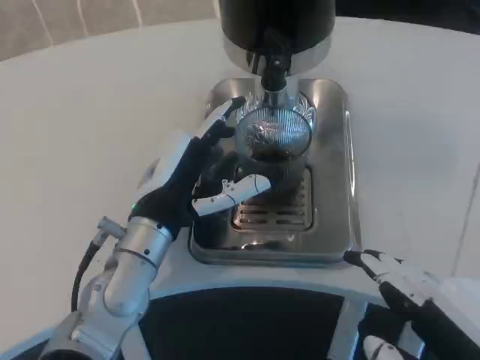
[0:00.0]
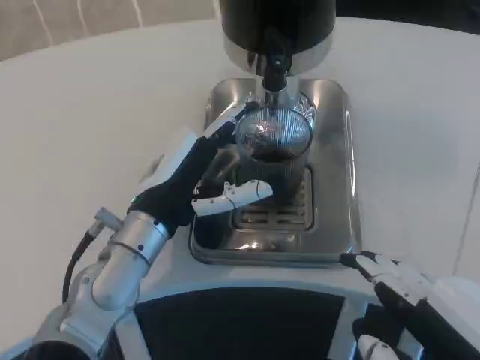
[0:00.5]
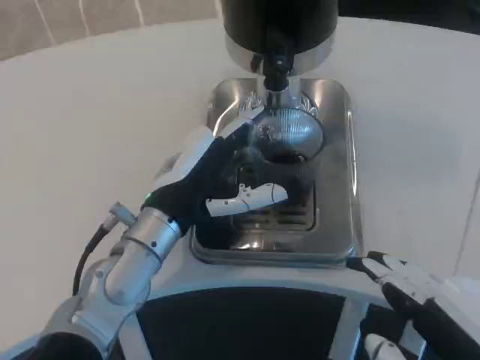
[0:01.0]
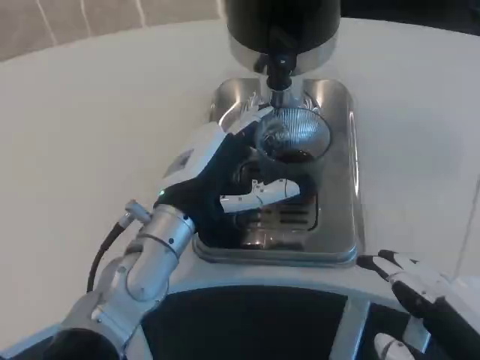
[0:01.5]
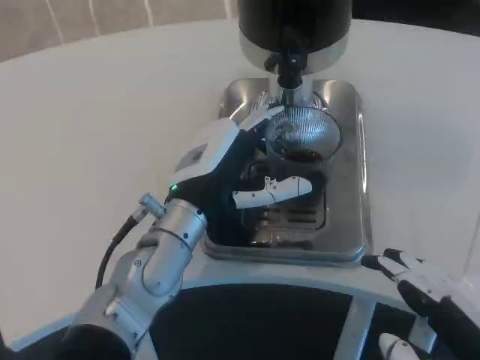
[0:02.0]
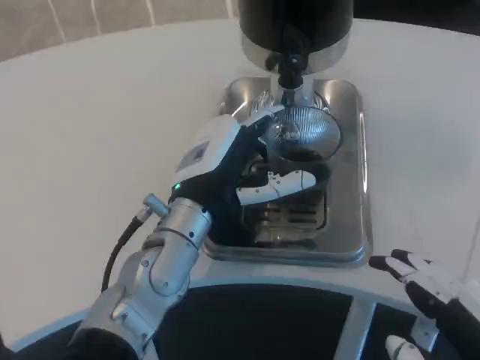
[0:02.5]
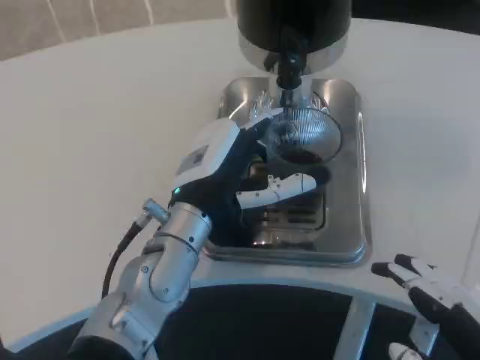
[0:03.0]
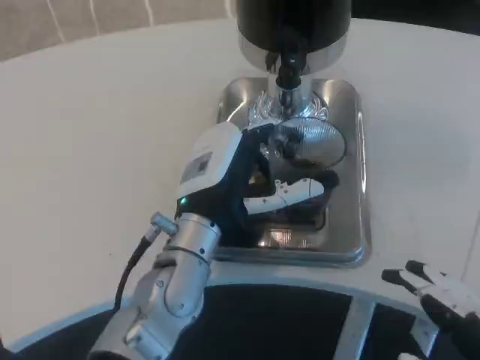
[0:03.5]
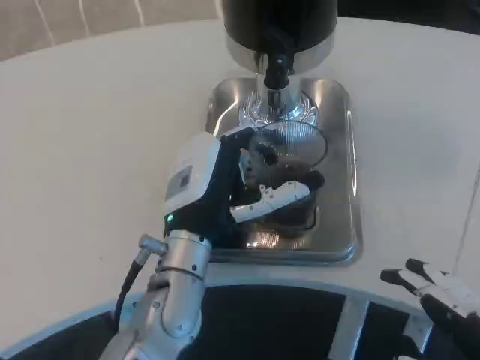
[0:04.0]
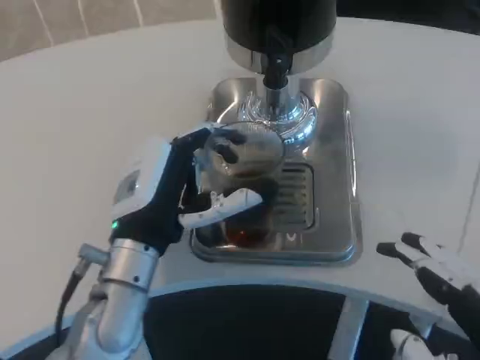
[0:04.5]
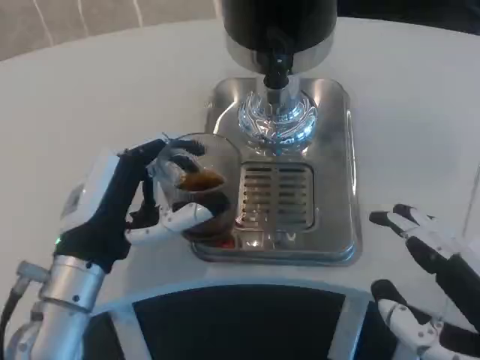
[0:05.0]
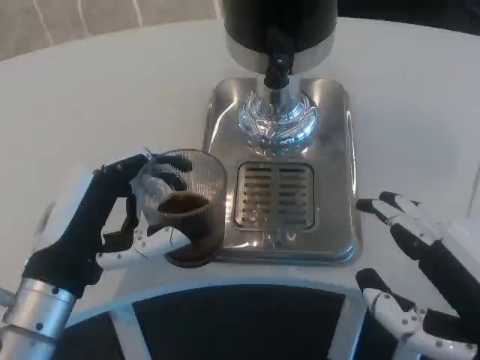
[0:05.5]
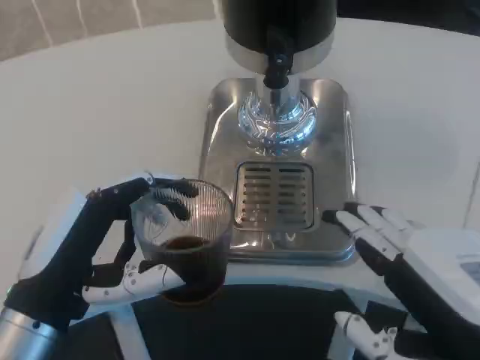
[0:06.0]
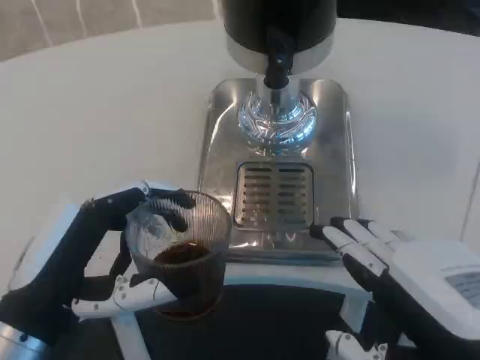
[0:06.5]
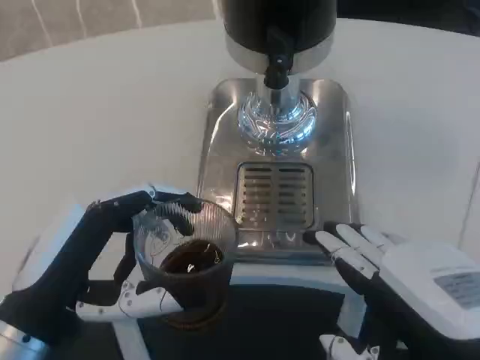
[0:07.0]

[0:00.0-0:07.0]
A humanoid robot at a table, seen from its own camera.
Task of the whole recording: Grasp the cup under the faucet to collect the drink, then remove the cup.
0:02.0 to 0:03.5: There are only small adjustments of the hands.
0:03.5 to 0:05.0: The left hand is displaced to the left by about 10 cm.
0:05.0 to 0:07.0: The left hand travels backward by approximately 5 cm.

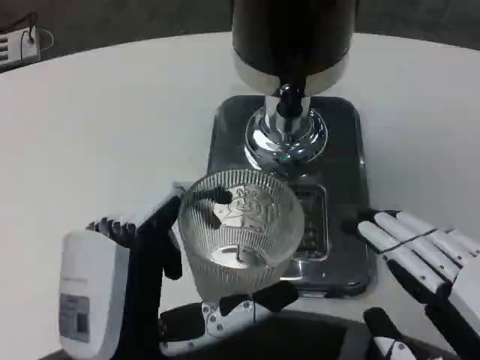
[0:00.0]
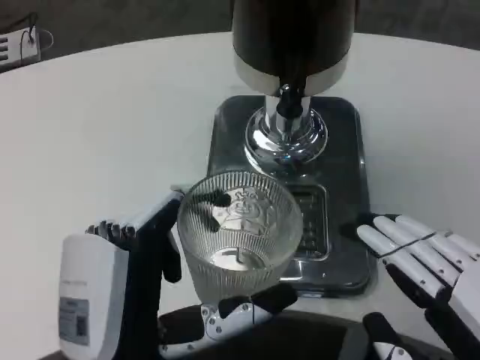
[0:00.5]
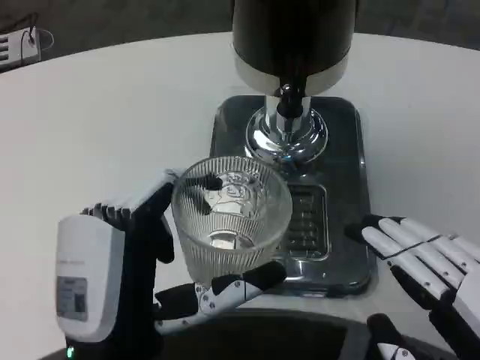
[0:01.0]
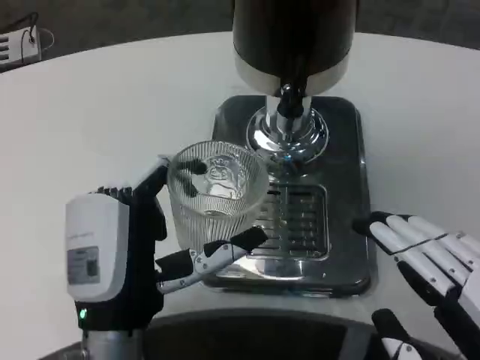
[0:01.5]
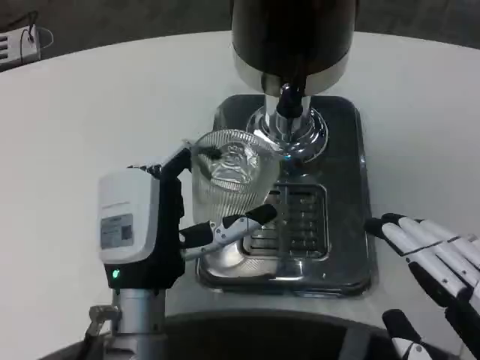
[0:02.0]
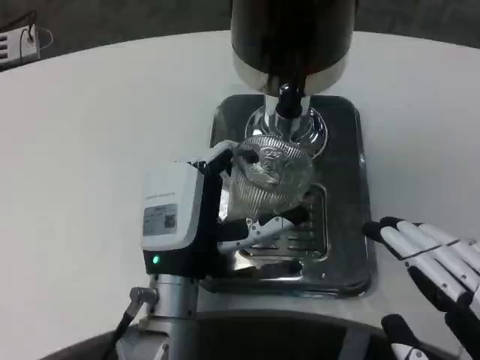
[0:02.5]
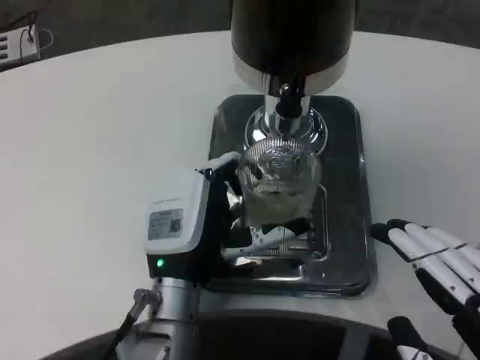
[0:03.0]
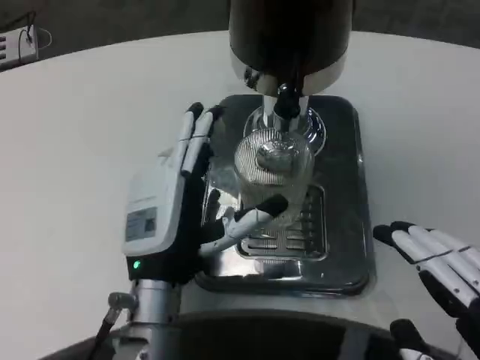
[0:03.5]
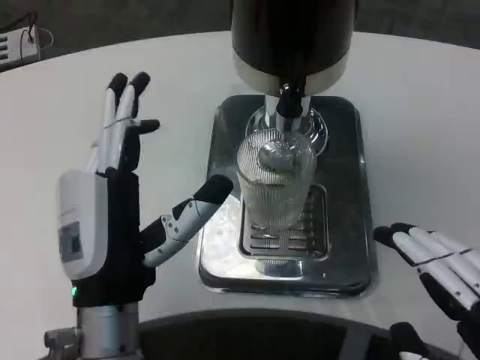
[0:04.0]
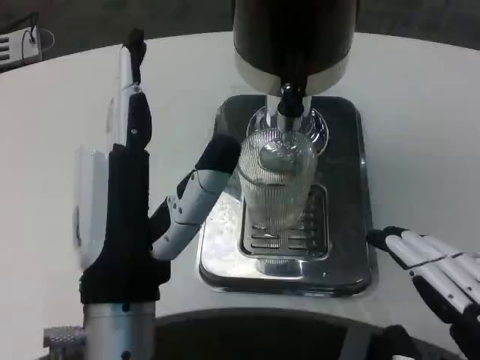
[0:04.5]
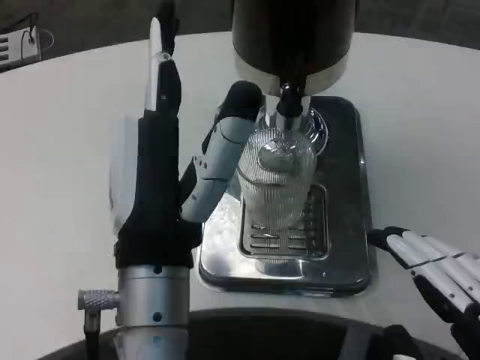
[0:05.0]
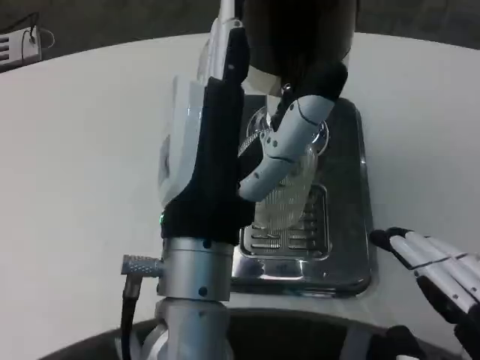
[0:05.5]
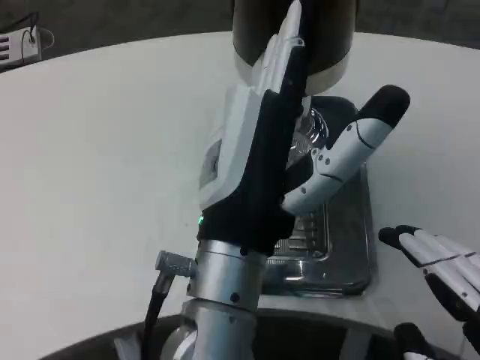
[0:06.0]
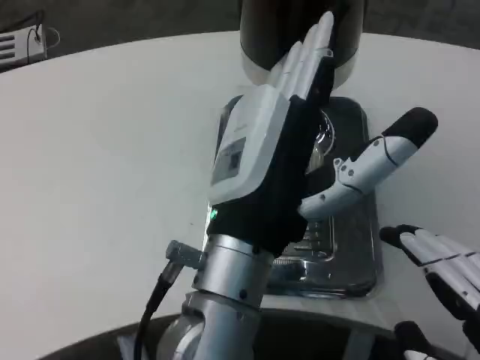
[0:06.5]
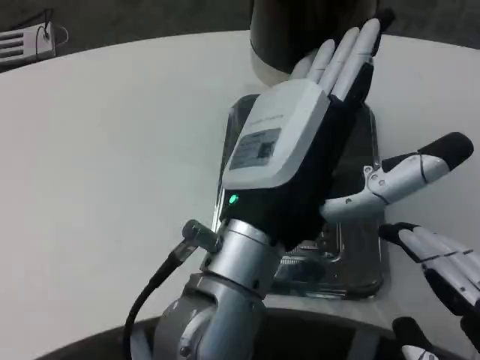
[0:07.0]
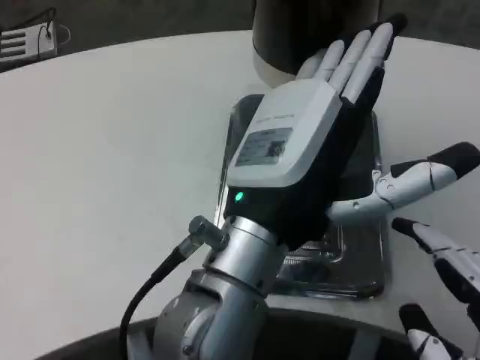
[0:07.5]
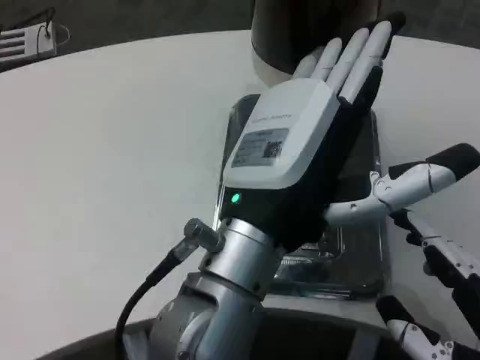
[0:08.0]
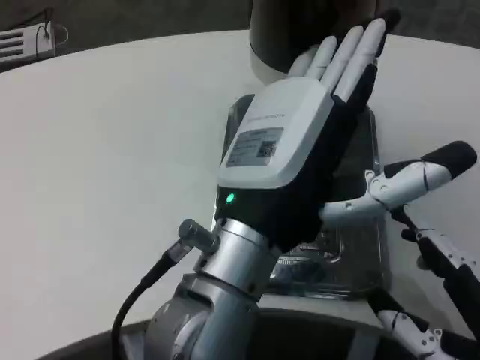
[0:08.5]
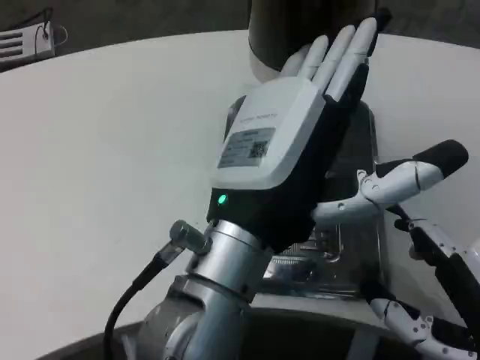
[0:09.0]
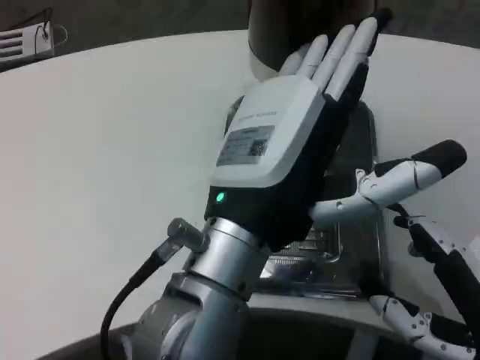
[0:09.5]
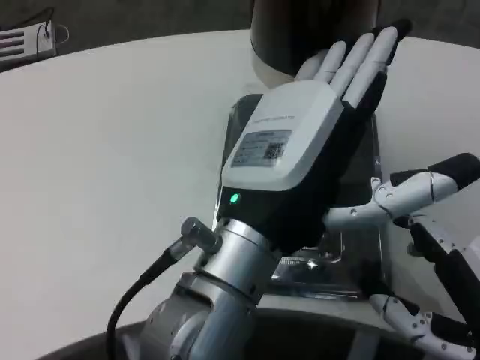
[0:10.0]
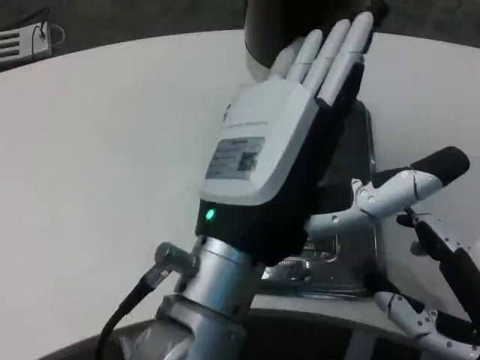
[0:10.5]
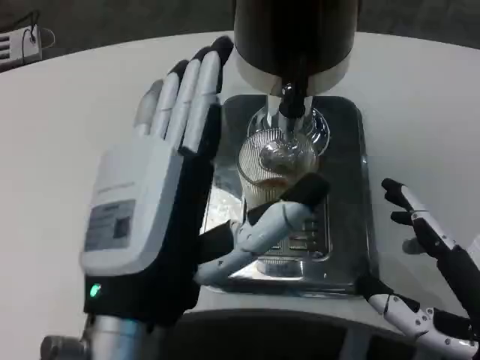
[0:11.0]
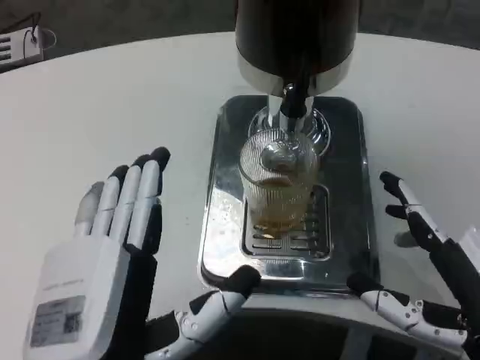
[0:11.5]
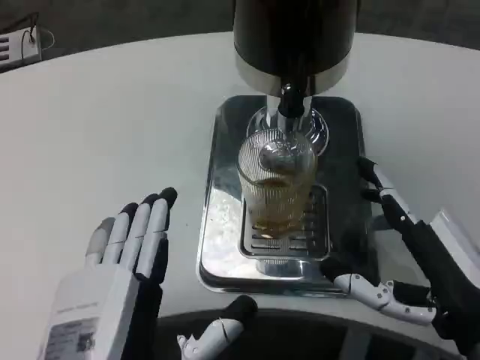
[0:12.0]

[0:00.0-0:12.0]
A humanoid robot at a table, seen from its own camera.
Task of the whole recording: Grasp the cup under the faucet to collect the drink, then remove the cup.
0:00.0 to 0:02.0: The left hand shifts about 10 cm forward.
0:02.0 to 0:04.0: The left hand shifts about 5 cm backward.
0:04.0 to 0:06.0: The left hand shifts about 10 cm to the right and upward.
0:08.0 to 0:10.0: The hands stay close to where they were, moving slightly.
0:10.0 to 0:12.0: The left hand goes about 15 cm downward, to the left and backward.

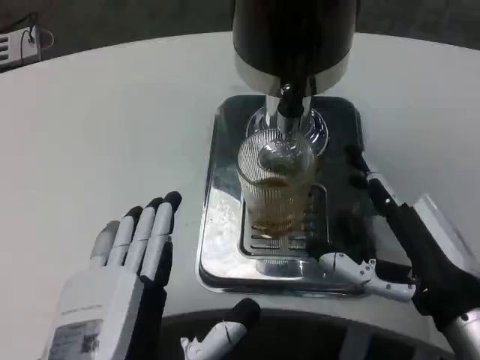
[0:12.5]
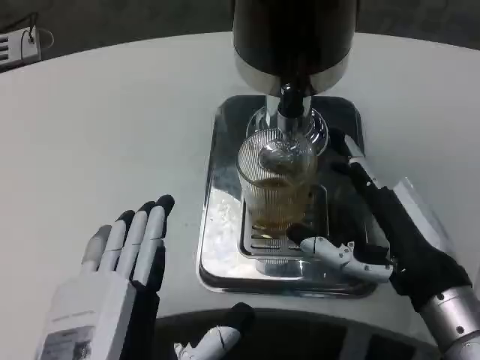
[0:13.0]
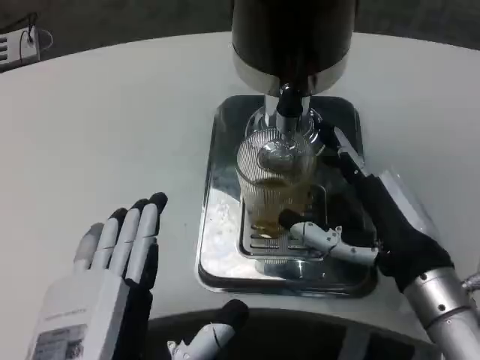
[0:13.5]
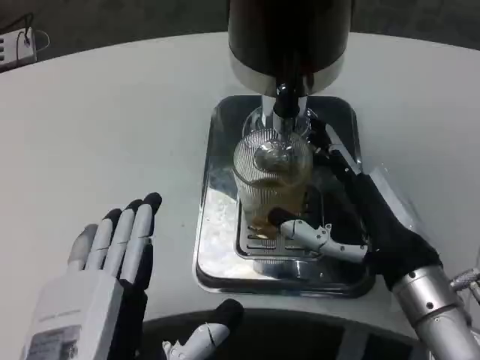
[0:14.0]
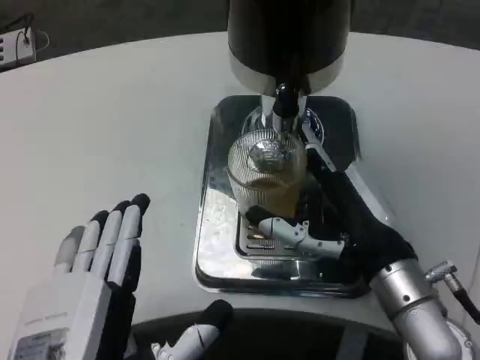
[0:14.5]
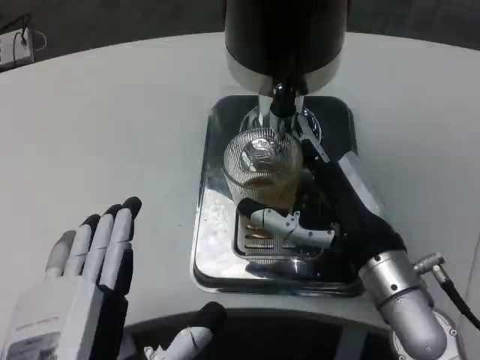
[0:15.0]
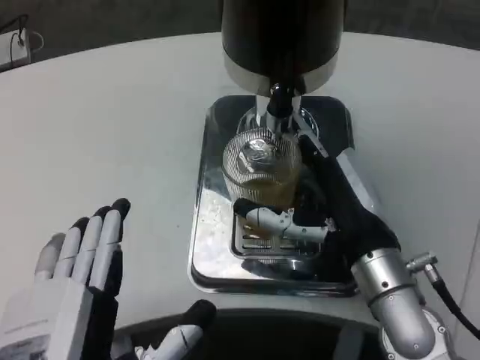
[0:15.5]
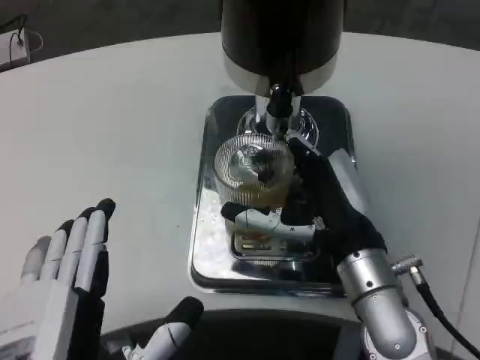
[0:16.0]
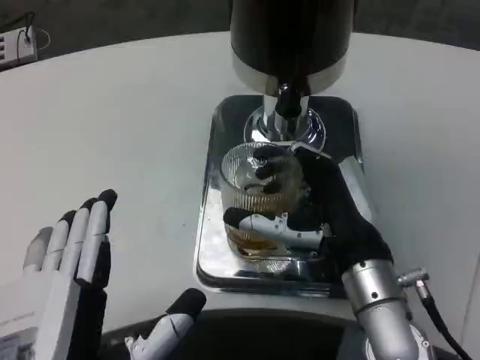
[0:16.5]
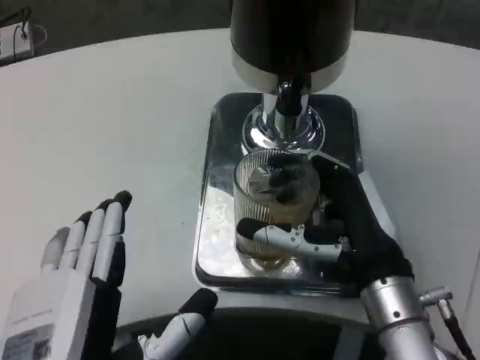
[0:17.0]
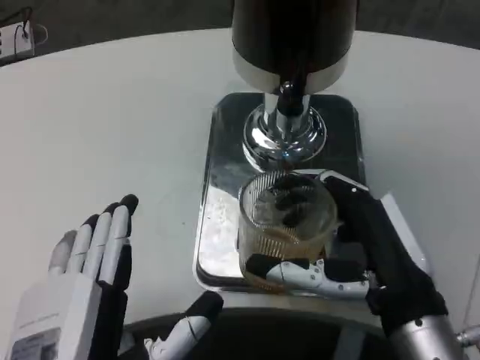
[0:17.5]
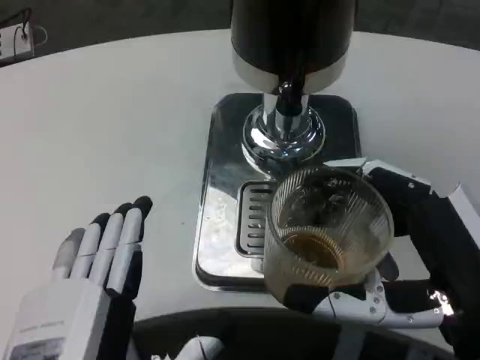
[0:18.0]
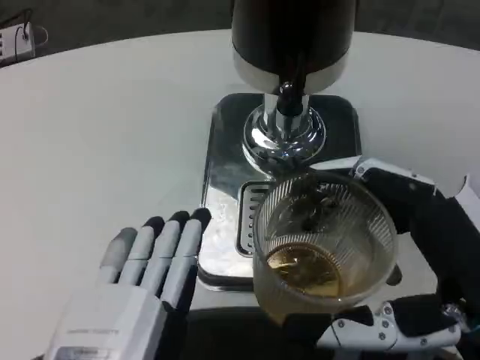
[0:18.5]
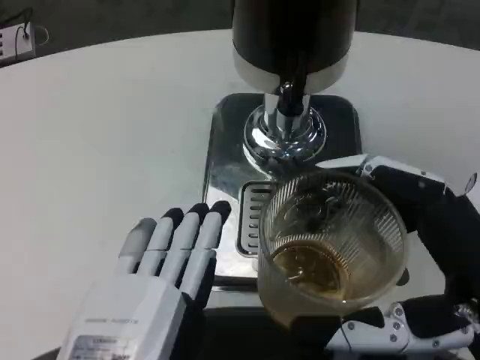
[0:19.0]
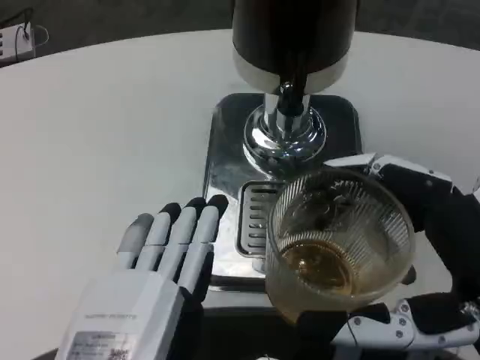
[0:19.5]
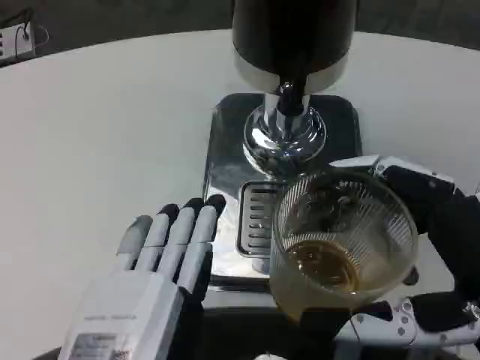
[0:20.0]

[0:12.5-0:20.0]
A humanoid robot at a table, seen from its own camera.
Task of the whole recording: Grasp the cup under the faucet to collect the drink, then remove the cup.
0:12.5 to 0:14.5: The right hand moves some 5 cm.
0:16.5 to 0:18.0: The right hand goes some 15 cm backward and to the right.
